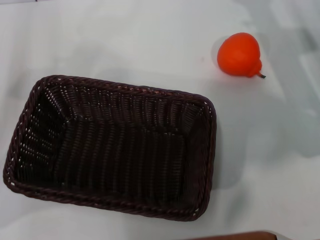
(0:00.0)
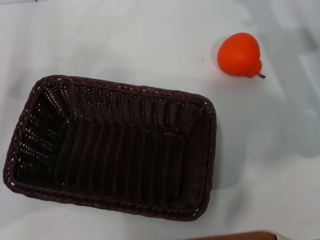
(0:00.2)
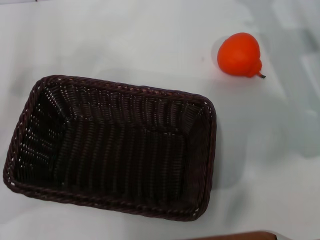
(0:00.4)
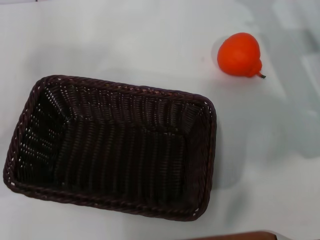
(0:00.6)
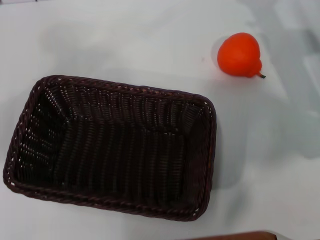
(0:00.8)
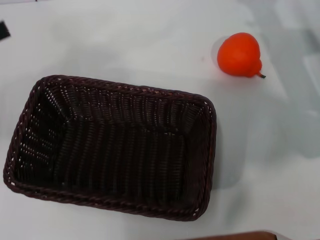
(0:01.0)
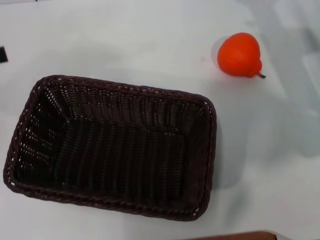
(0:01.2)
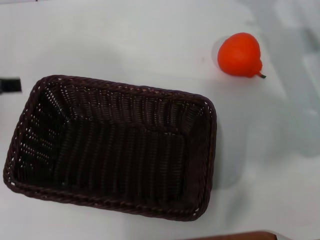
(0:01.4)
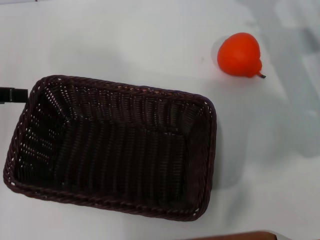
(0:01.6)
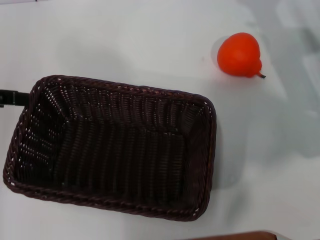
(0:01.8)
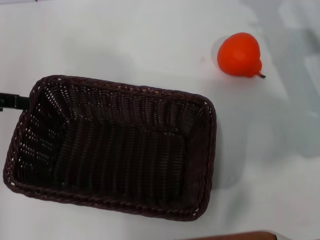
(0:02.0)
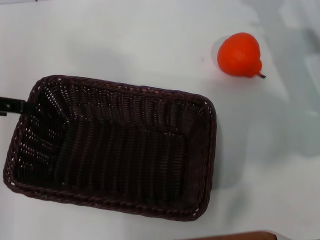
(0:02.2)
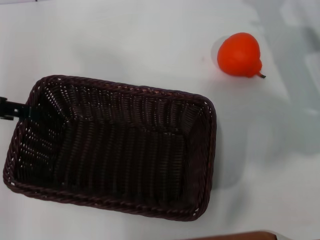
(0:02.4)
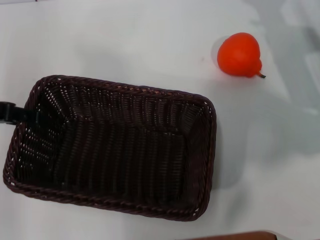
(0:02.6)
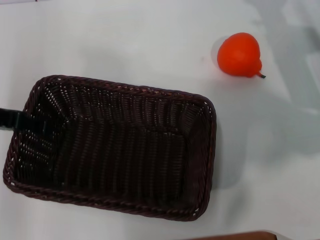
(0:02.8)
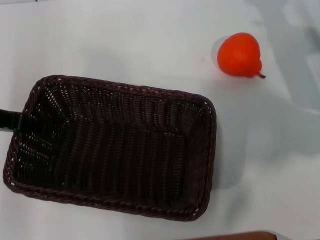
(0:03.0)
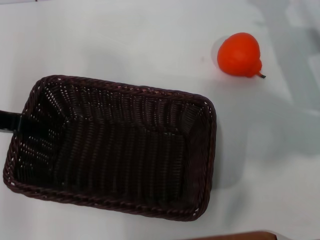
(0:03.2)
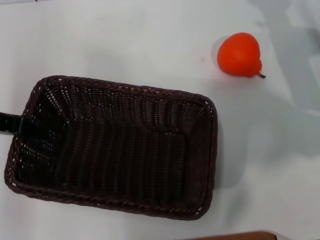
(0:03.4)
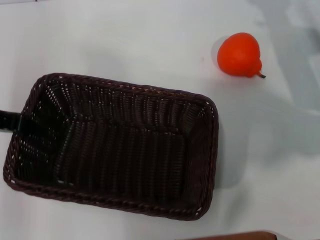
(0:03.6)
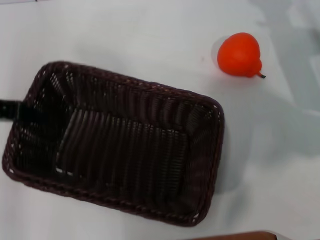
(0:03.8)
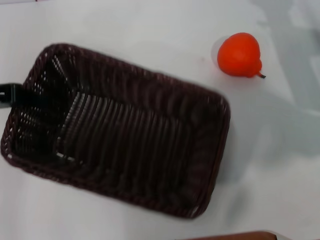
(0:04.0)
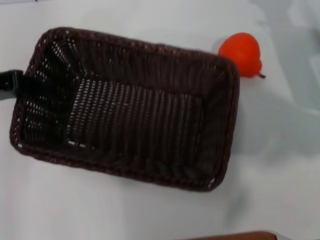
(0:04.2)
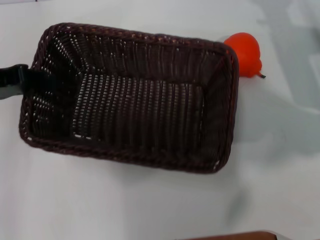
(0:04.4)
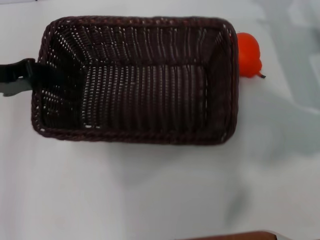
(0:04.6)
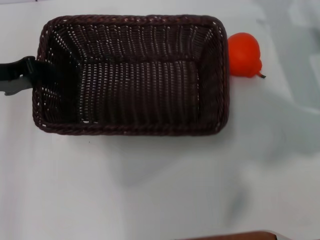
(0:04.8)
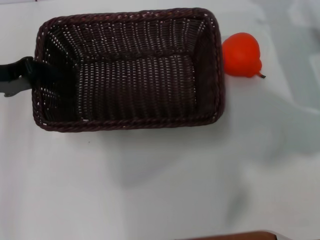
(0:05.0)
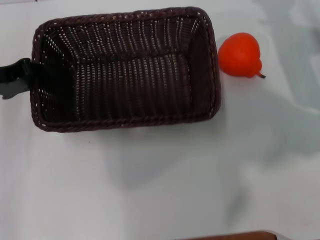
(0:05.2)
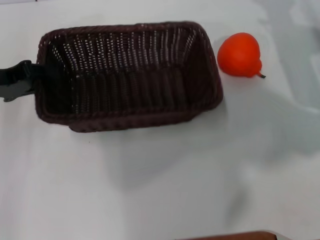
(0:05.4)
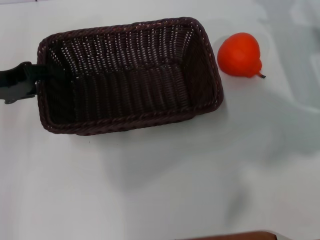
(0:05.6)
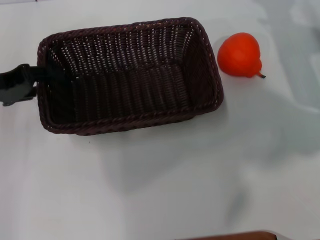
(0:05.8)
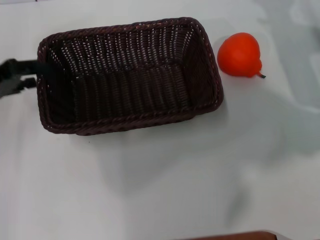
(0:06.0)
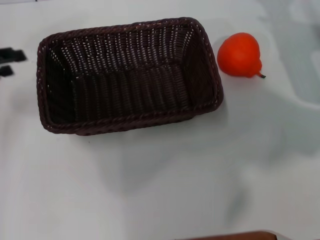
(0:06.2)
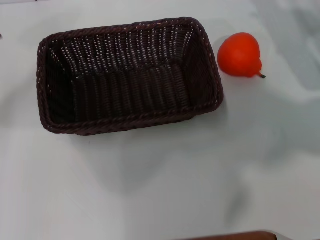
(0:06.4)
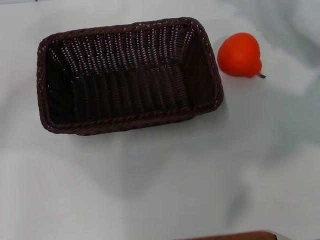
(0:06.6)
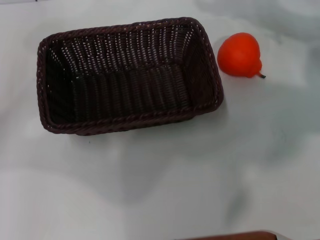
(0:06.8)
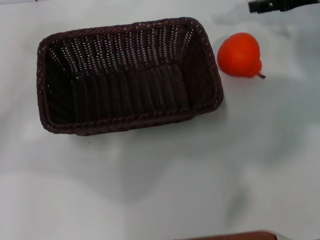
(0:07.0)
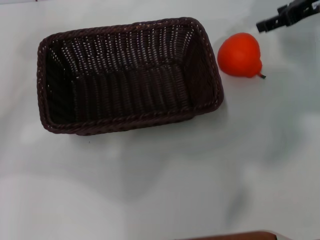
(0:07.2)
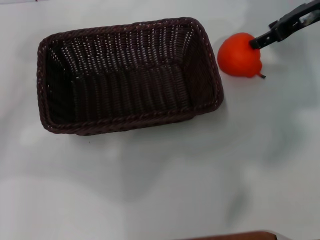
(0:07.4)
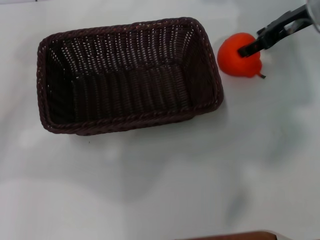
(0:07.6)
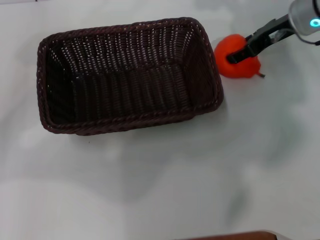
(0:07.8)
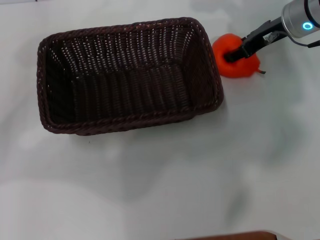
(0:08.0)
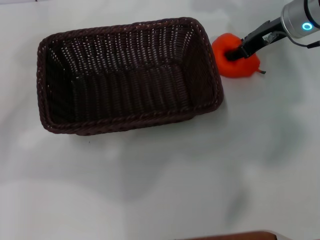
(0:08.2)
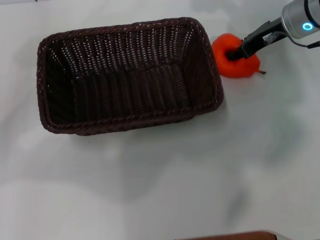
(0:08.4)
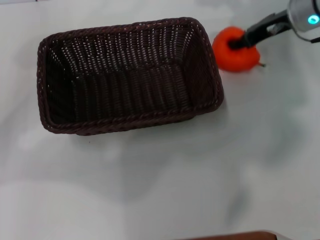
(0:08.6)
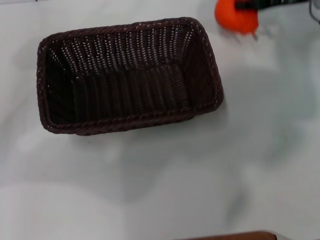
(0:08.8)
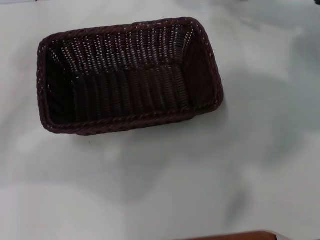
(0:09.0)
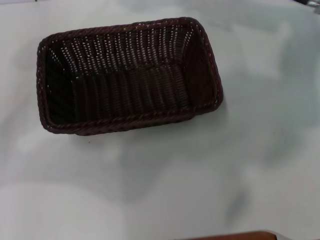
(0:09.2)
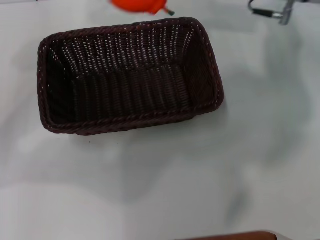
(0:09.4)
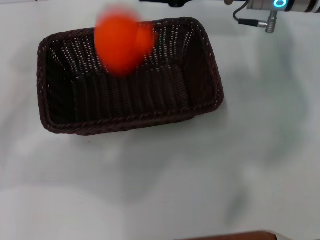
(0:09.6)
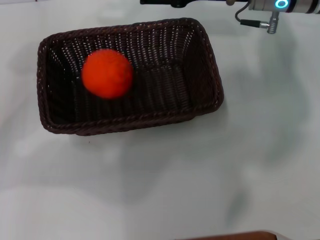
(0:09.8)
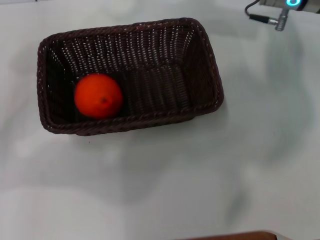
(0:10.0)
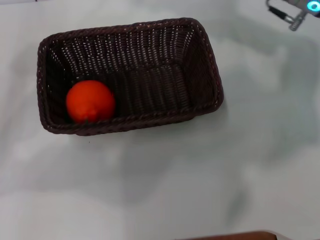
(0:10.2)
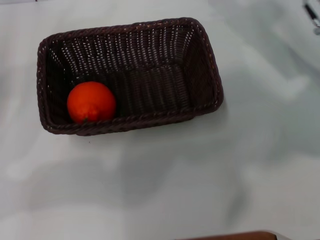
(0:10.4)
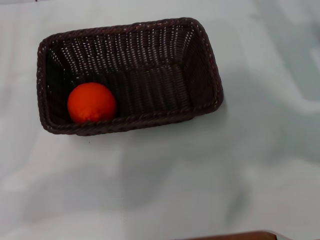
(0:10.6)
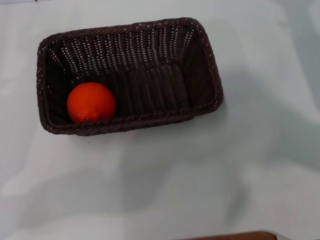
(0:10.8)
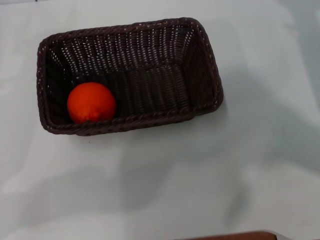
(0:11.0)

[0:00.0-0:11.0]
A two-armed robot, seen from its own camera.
Task of the whole recording: the left gripper pick up the black basket and place it horizontally in the middle of the table, the right gripper pick up the orange and place it into the black basket.
Step, 0:00.0 to 0:04.0: Pick up the dark basket with the left gripper.
Step, 0:04.2 to 0:06.0: Place the dark basket in the center of view with the left gripper.
Step, 0:06.2 to 0:08.6: Pick up the orange with the right gripper.
Step, 0:08.8 to 0:09.6: Place the orange into the dark basket with the right gripper.
0:00.0 to 0:01.6: The left gripper goes roughly 10 cm upward.
0:01.6 to 0:03.2: The left gripper ends up approximately 5 cm from where it was.
0:03.2 to 0:04.8: The left gripper closes its fingers.
0:04.8 to 0:06.2: The left gripper travels to the left by approximately 5 cm, and opens its fingers.
0:06.2 to 0:07.8: The left gripper opens up. Meanwhile the right gripper heads forward and to the left, covering roughly 10 cm.
0:07.8 to 0:09.4: The right gripper moves to the left and upward, approximately 10 cm, and closes up.
0:09.4 to 0:11.0: The left gripper shifts by about 5 cm, while the right gripper is displaced to the right, downward and backward by approximately 20 cm, and opens up.

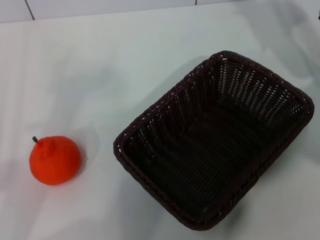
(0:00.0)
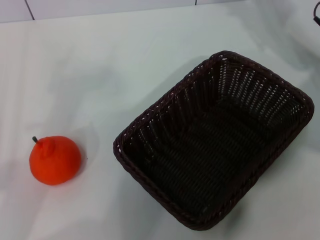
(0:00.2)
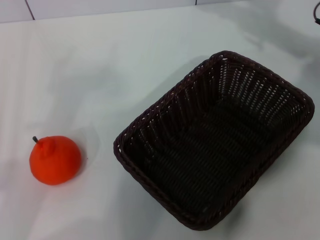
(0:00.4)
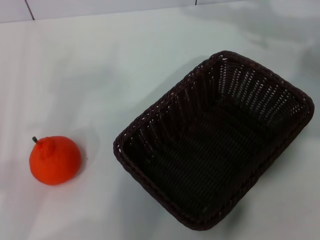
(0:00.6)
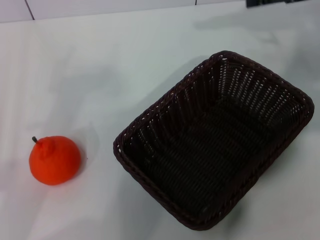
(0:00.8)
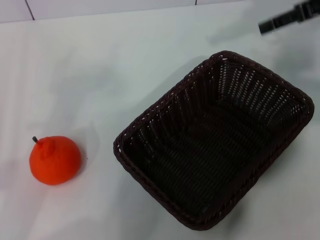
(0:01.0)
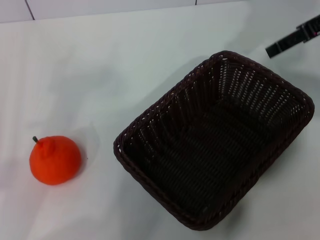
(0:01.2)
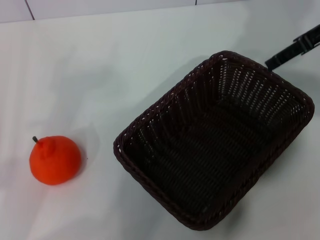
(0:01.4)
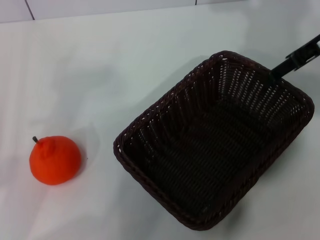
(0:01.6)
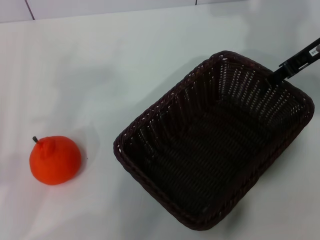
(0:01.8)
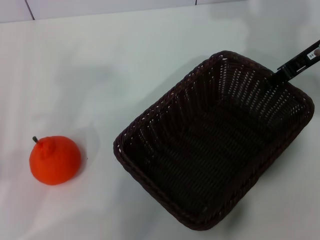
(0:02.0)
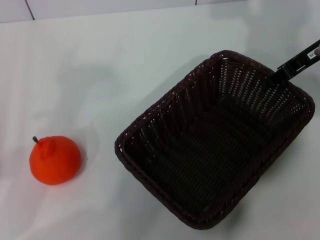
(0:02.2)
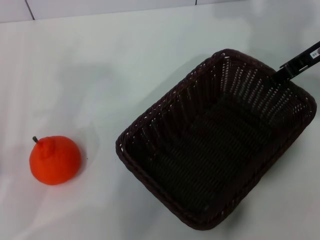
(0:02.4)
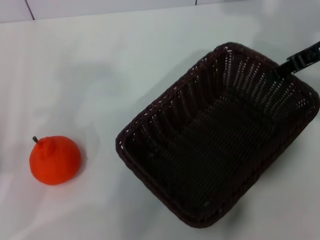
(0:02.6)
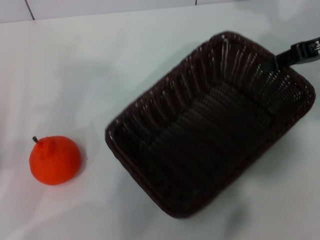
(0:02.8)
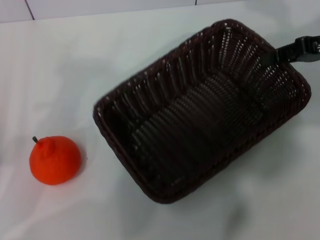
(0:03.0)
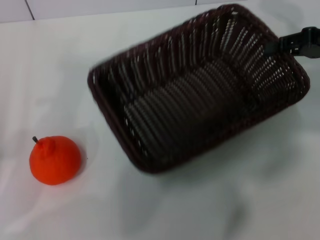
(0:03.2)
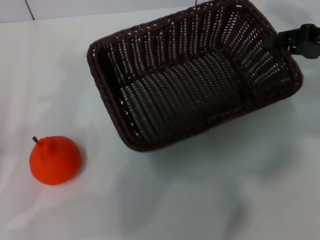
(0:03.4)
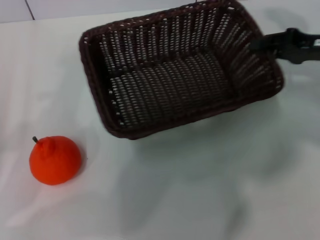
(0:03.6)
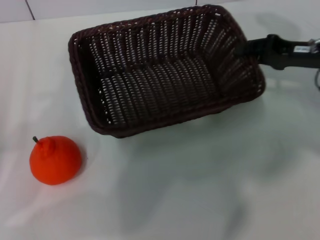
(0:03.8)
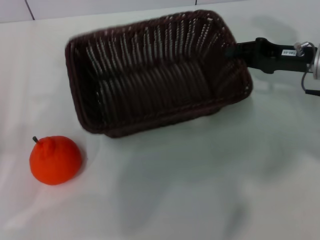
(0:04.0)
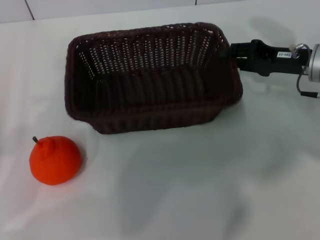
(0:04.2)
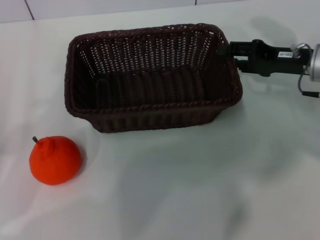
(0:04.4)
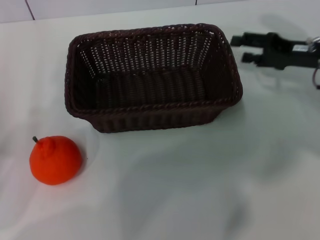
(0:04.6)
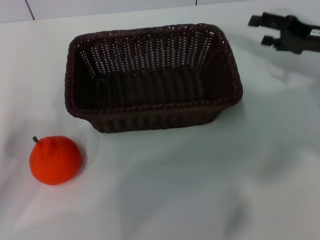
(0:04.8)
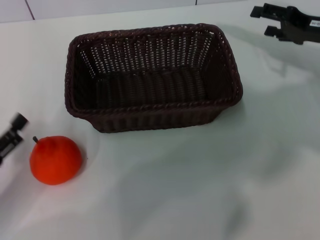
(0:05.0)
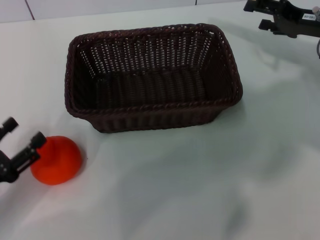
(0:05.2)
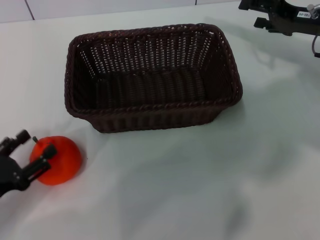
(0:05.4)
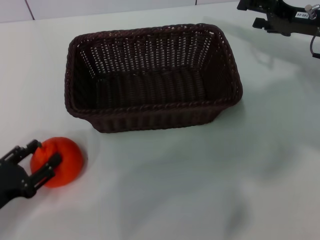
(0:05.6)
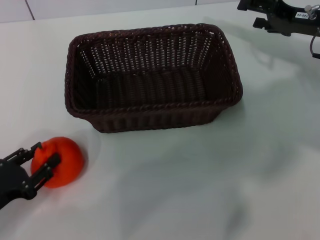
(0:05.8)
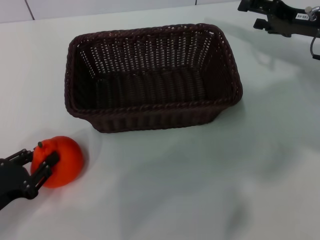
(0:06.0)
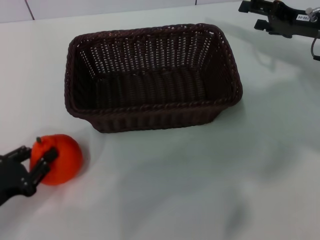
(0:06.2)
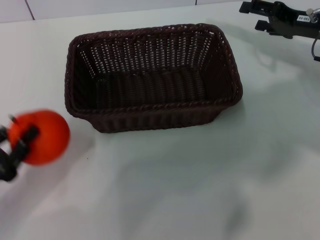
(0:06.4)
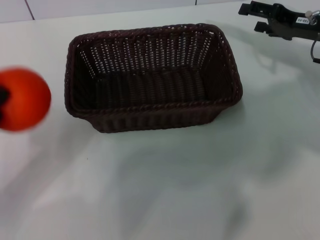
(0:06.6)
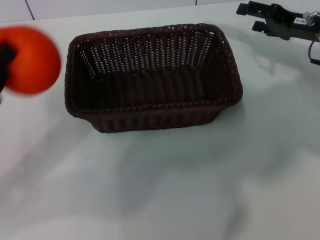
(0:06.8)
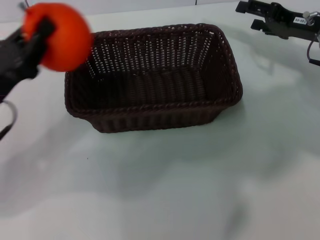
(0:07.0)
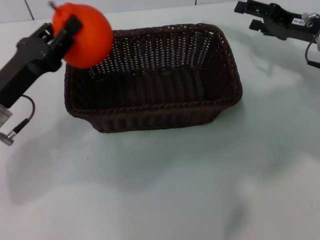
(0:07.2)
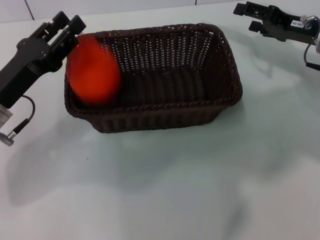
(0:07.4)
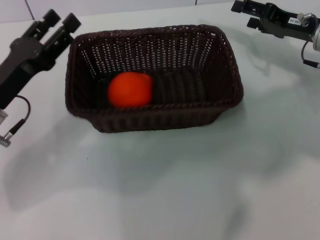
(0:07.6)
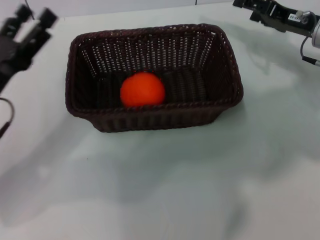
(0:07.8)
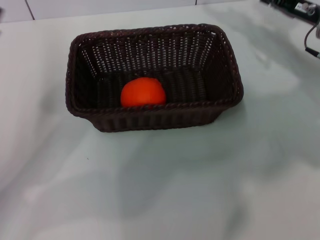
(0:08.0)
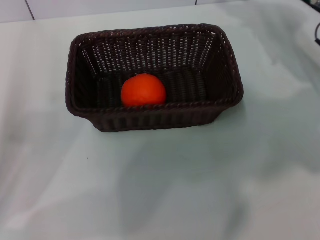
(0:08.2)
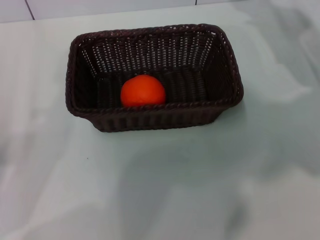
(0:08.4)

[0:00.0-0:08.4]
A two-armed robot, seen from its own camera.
Task of the whole recording: the right gripper pick up the black basket and place it horizontally in the middle of the table, the left gripper pick up the orange and place it into the black basket.
Step, 0:00.0 to 0:02.6: Pick up the dark basket with the right gripper.
Step, 0:02.8 to 0:04.4: Place the dark basket in the center of view with the right gripper.
Step, 0:04.8 to 0:06.2: Pick up the orange with the left gripper.
Step, 0:06.4 to 0:07.4: Place the orange into the dark basket with the left gripper.
0:00.0 to 0:01.4: The right gripper moves upward, about 10 cm.
0:01.4 to 0:02.8: The right gripper changes place by about 5 cm, and closes up.
0:02.8 to 0:04.2: The right gripper shifts approximately 10 cm downward.
0:04.2 to 0:05.6: The right gripper ends up roughly 5 cm from where it was, and opens its fingers. The left gripper moves downward, about 10 cm.
0:05.6 to 0:07.0: The left gripper goes some 15 cm forward, upward and to the right, and closes up.
0:07.0 to 0:08.4: The left gripper moves backward and to the left, approximately 10 cm, and opens.
